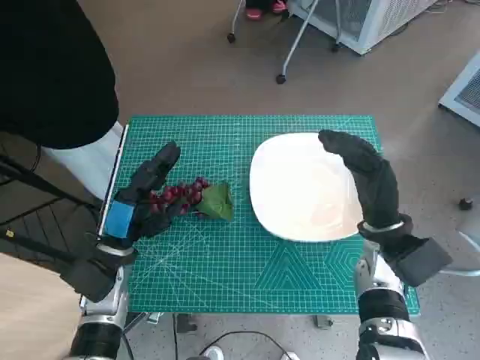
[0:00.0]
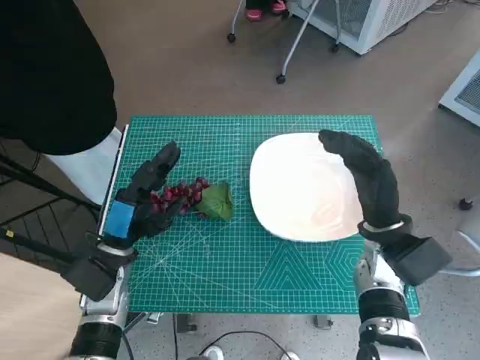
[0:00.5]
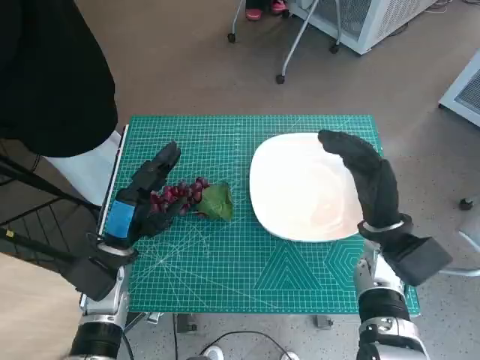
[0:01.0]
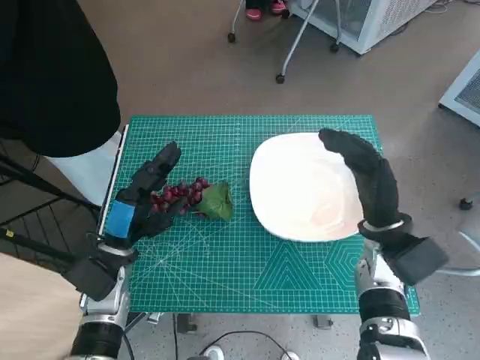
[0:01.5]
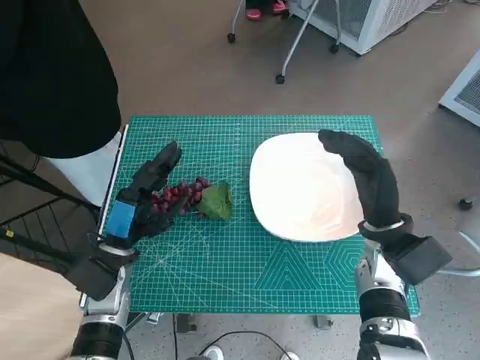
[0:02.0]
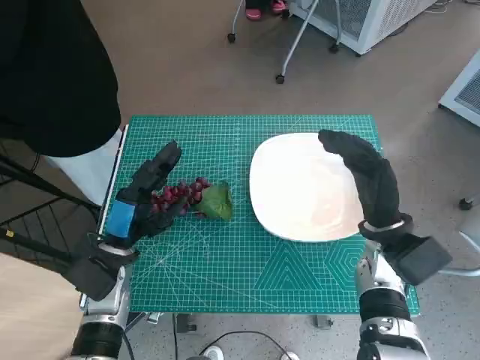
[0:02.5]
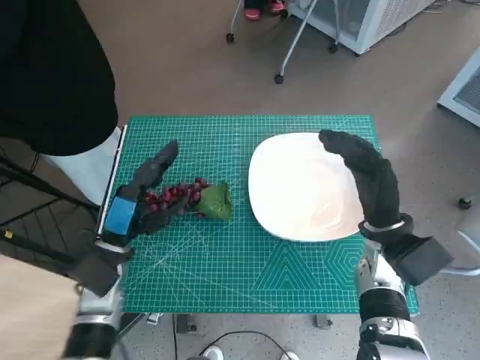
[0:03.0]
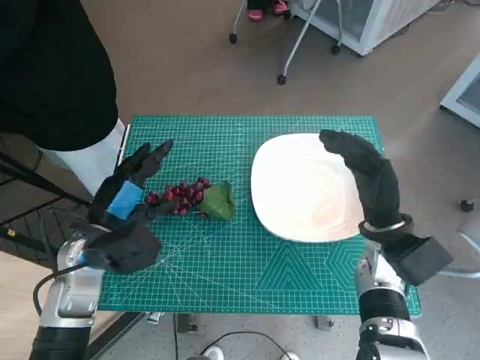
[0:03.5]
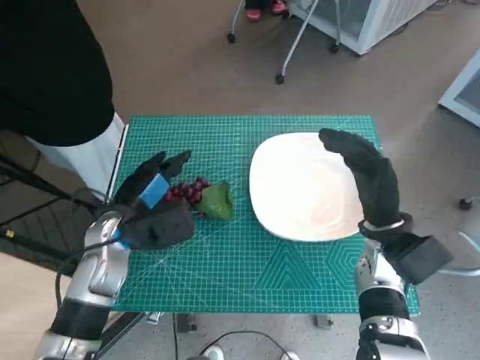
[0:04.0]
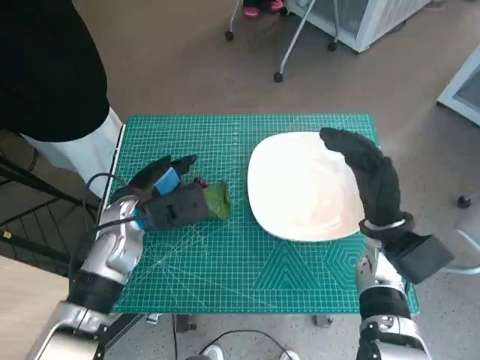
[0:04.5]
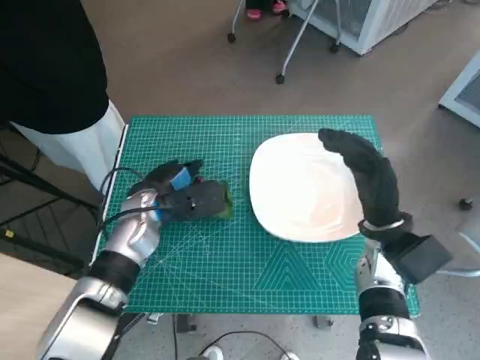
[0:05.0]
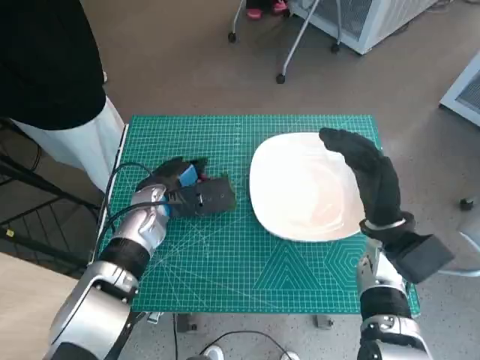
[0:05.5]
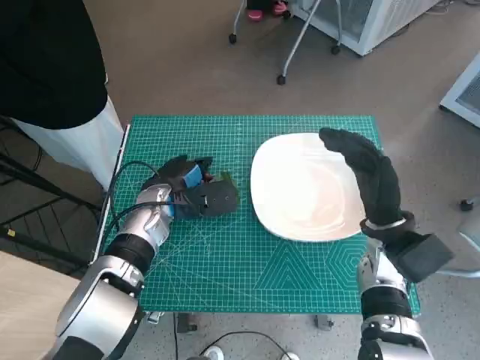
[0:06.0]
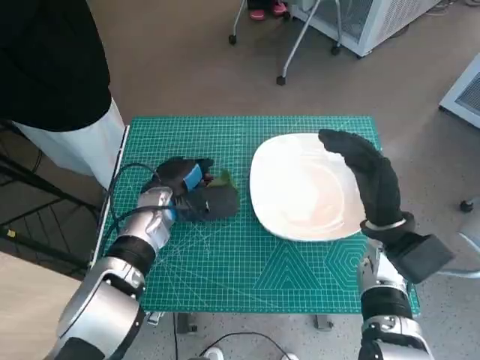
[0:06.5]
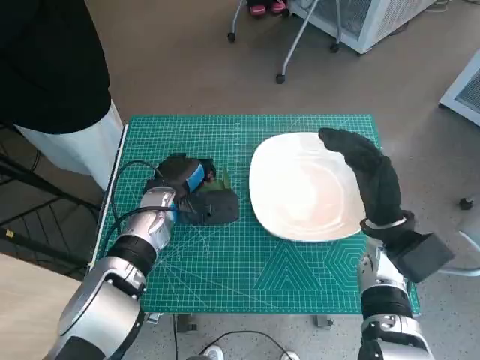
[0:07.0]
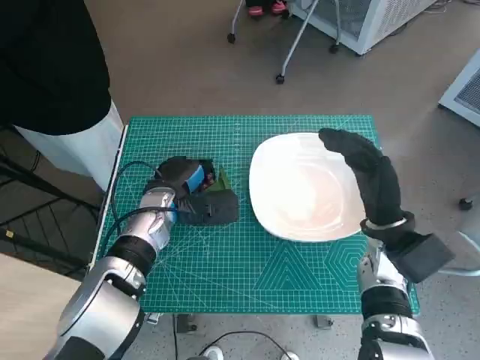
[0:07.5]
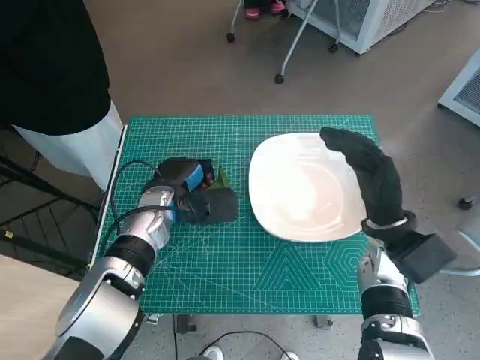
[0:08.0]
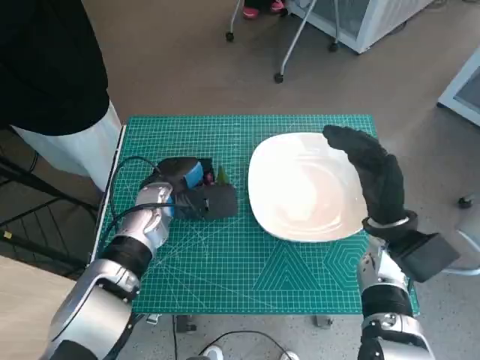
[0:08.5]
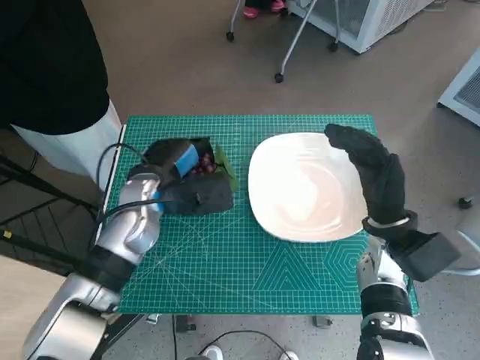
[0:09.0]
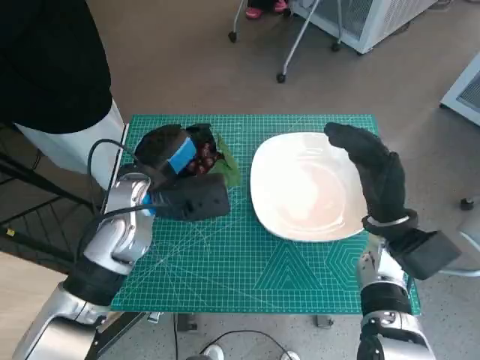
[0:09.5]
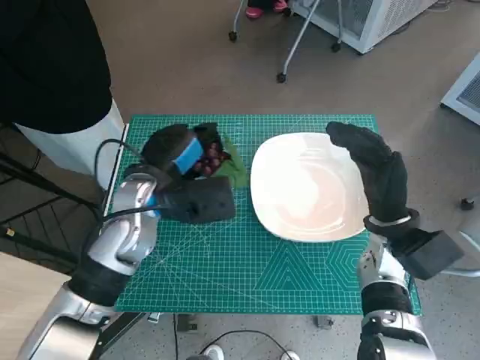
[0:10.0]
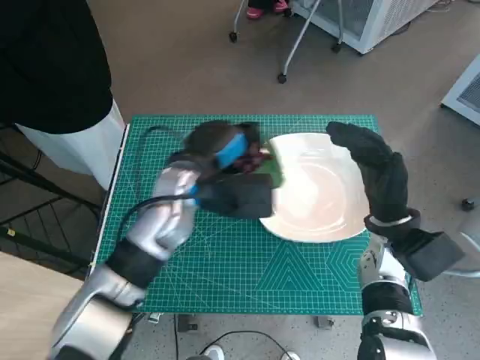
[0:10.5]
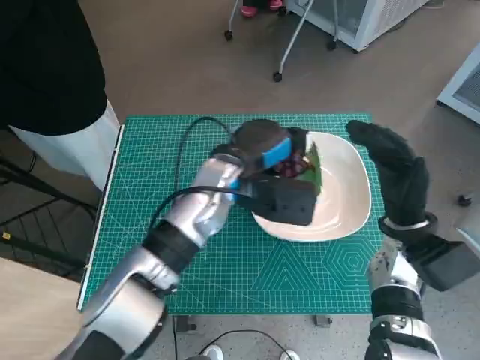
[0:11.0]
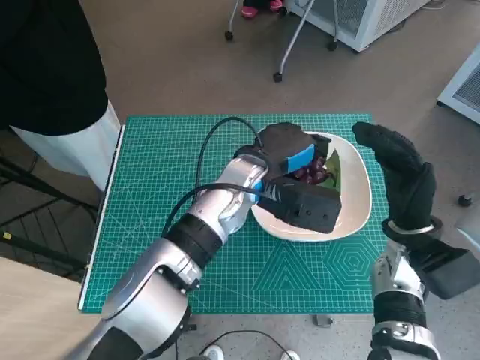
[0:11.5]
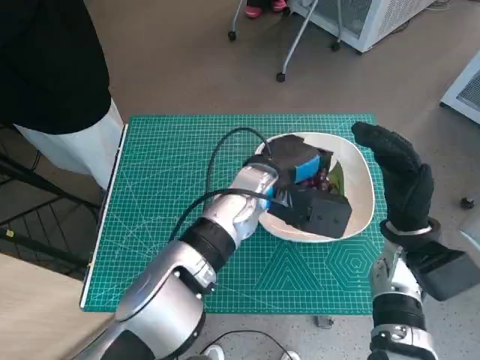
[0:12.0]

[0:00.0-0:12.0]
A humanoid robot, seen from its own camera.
Task of the whole recording: Pick up the grapes and put them on the plate.
Step, 0:00.0 to 0:08.0: Grasp the grapes with left hand.
0:02.0 to 0:04.0: The left hand ends up some 5 cm from where it was.
0:04.0 to 0:06.0: The left hand moves forward, approximately 5 cm.
0:06.0 to 0:08.0: The hands make only small movements.
0:08.0 to 0:10.0: The left hand goes approximately 10 cm upward.
0:10.0 to 0:12.0: The left hand goes some 15 cm to the right.

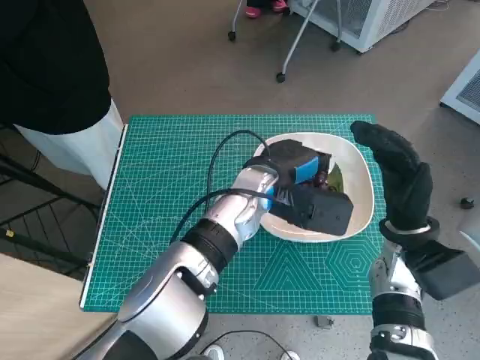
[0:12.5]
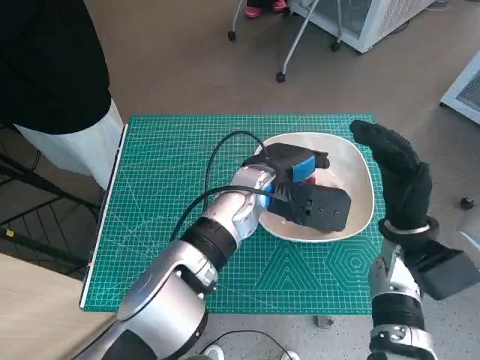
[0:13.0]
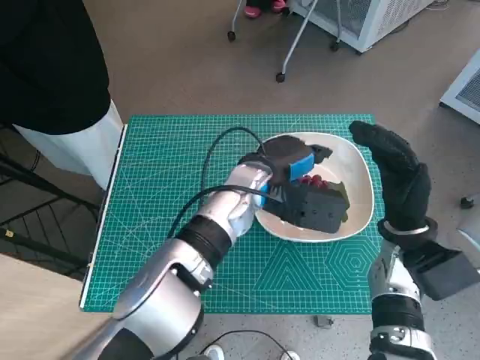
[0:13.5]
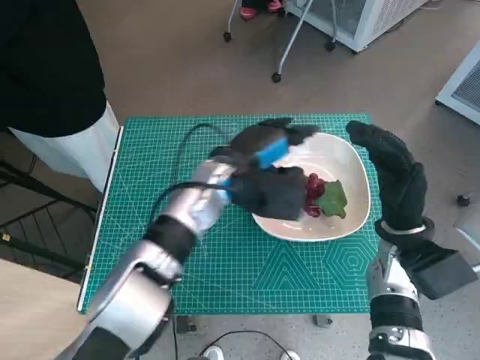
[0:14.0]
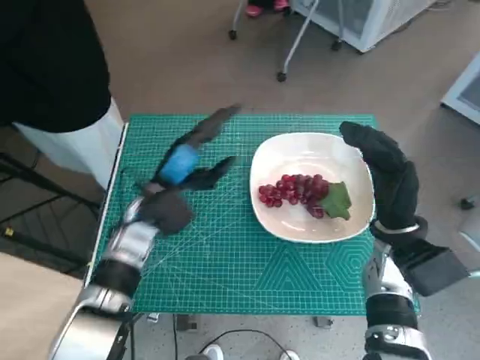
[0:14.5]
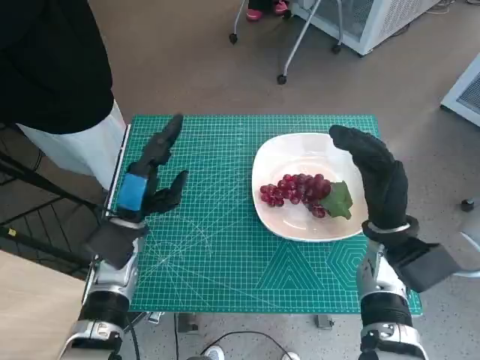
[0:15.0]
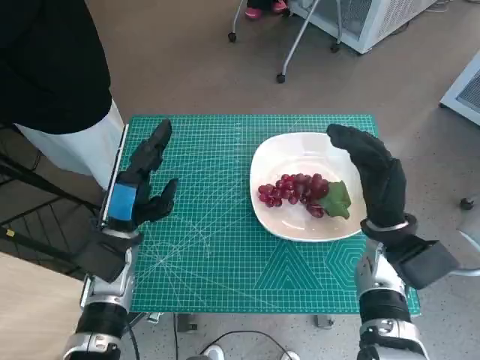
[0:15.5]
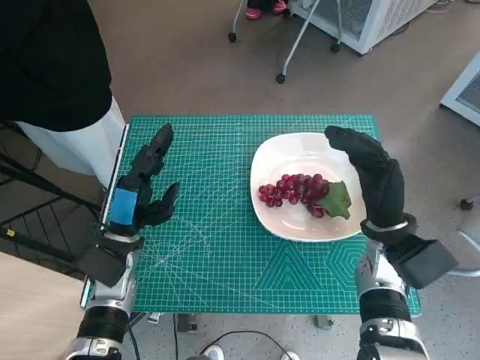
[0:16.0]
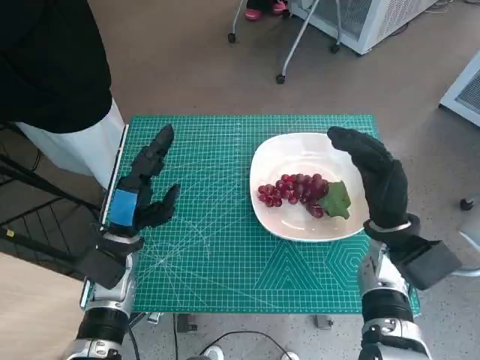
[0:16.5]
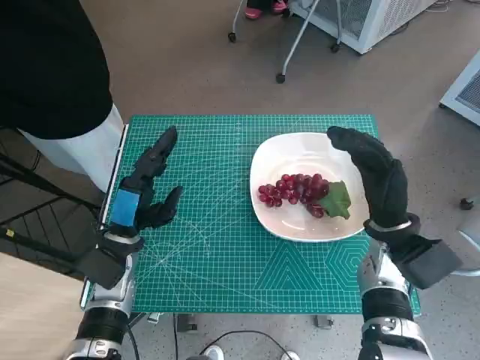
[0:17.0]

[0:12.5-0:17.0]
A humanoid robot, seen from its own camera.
Task of the whole recording: Pick up the grapes and put them on the plate.
0:12.5 to 0:14.5: The left hand shifts some 15 cm to the left.
0:14.5 to 0:17.0: The left hand shifts about 10 cm backward and to the left.

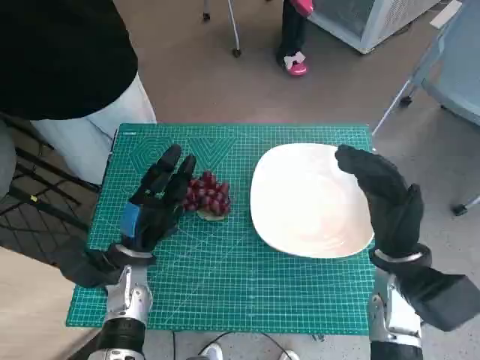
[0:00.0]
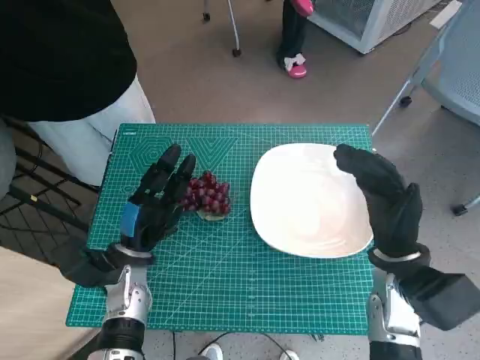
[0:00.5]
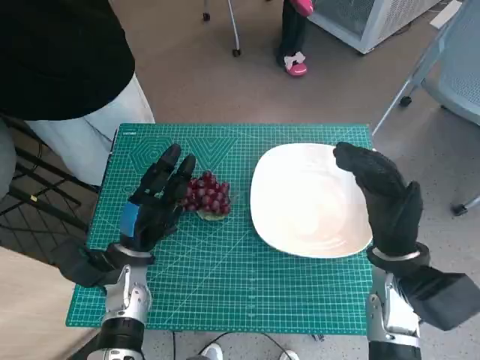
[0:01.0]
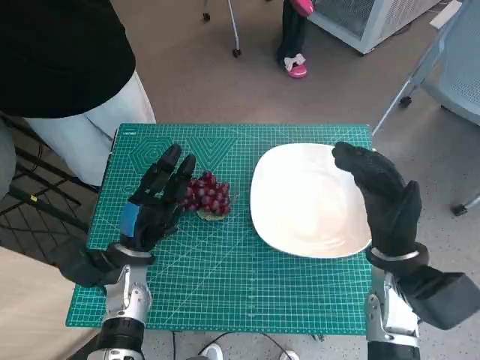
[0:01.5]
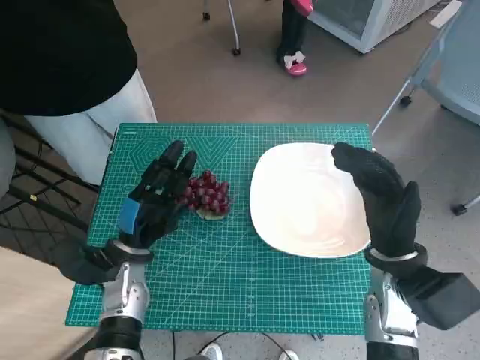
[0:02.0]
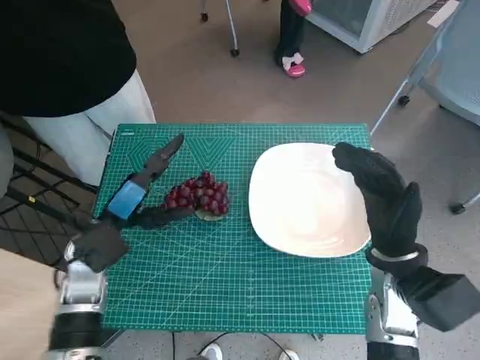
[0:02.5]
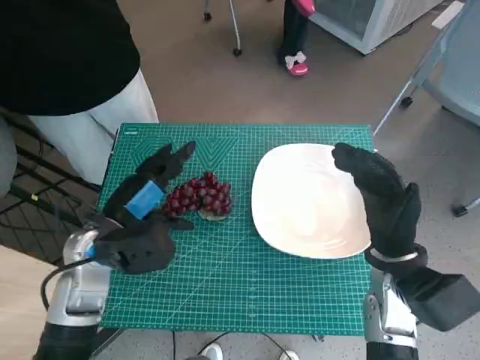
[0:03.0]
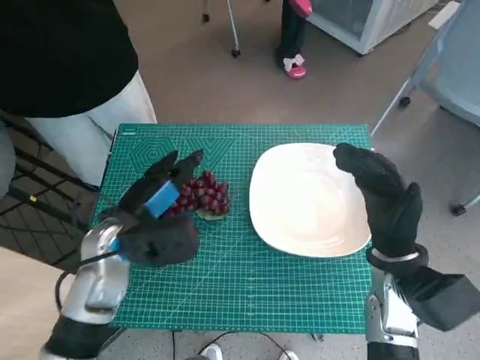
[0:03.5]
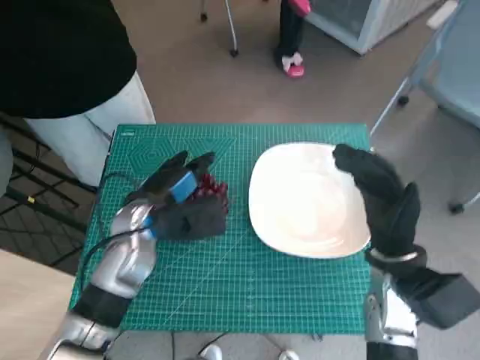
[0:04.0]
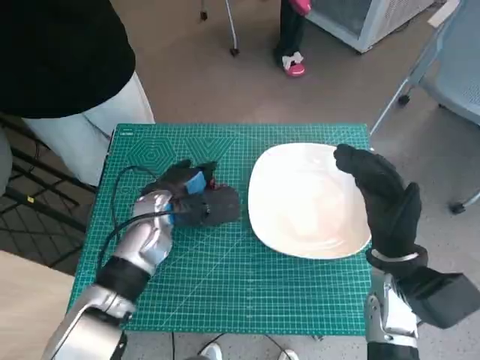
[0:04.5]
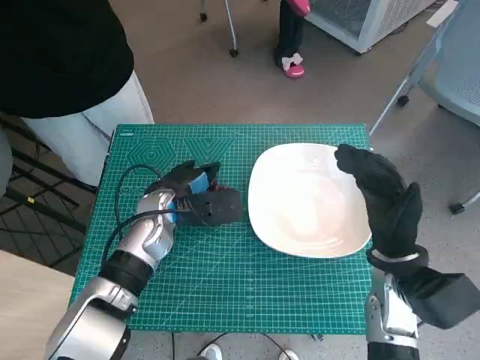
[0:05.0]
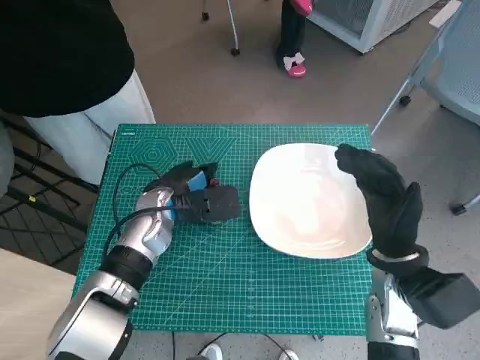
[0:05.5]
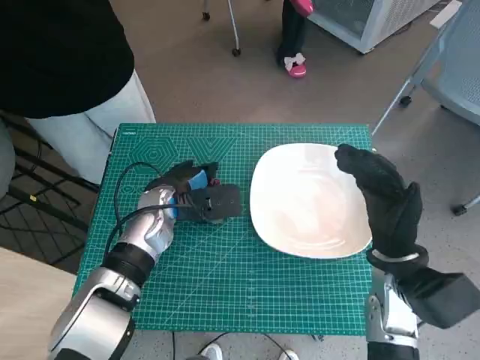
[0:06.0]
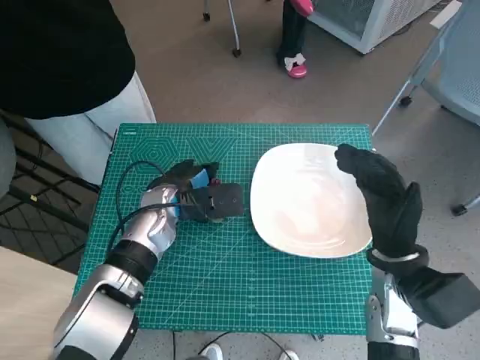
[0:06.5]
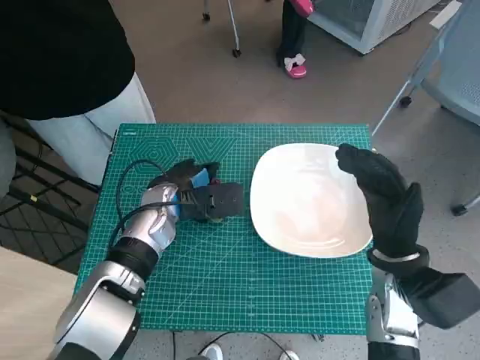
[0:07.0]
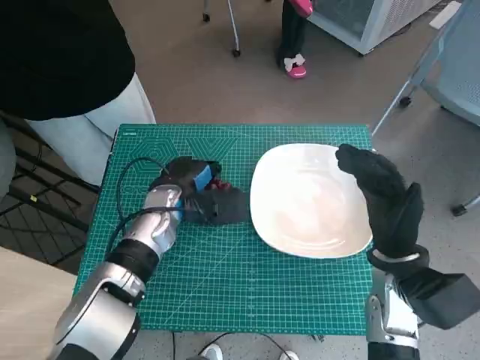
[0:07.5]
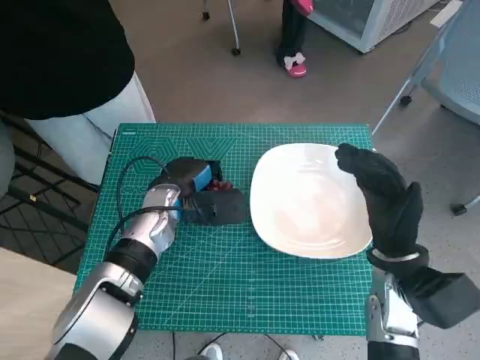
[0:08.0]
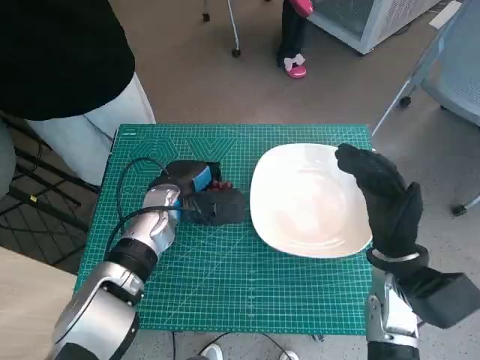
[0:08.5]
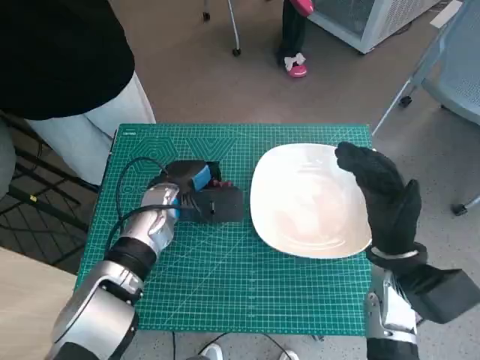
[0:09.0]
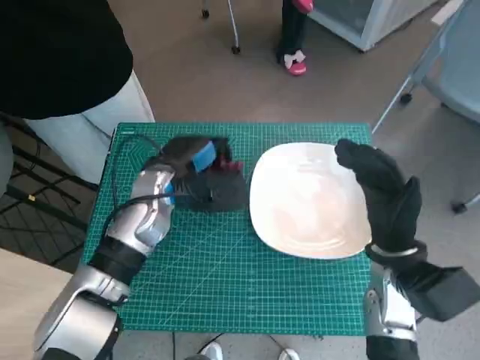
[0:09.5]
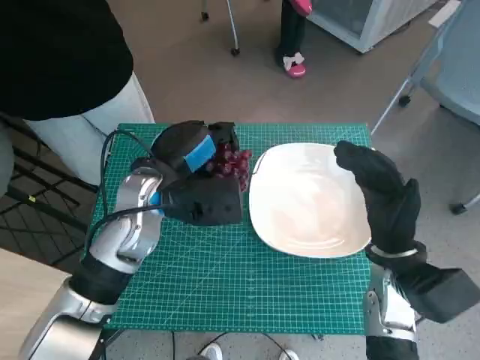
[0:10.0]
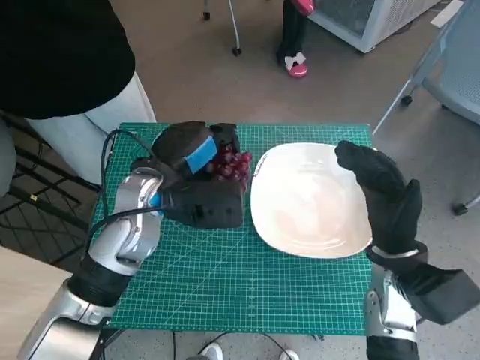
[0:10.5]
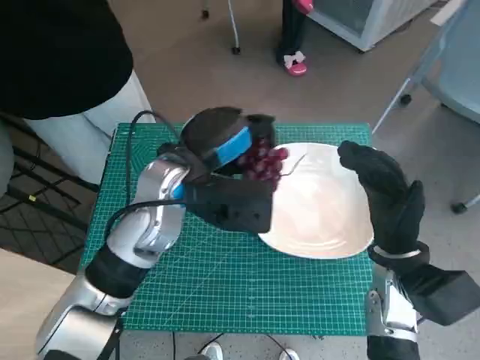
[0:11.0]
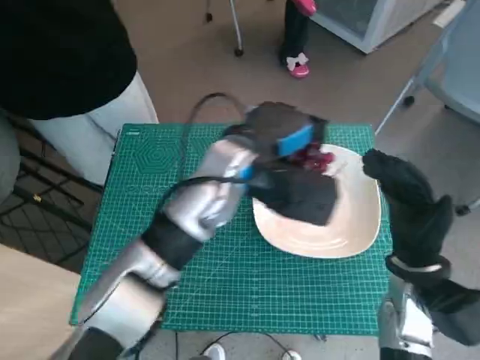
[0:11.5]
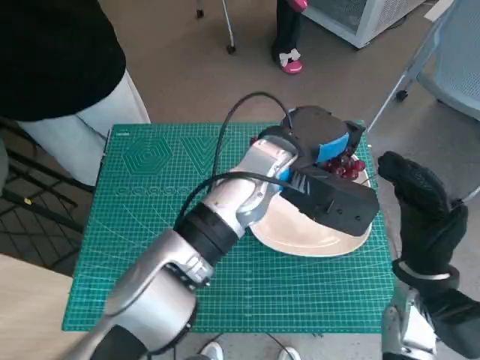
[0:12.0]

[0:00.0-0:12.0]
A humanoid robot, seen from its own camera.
Task of the whole recording: Pick up the grapes and put them on the plate.
Step, 0:00.0 to 0:08.5: Grasp the grapes with left hand.
0:02.0 to 0:04.0: The left hand moves upward, some 10 cm.
0:04.0 to 0:06.0: The left hand shifts by approximately 5 cm.
0:06.0 to 0:08.0: The hands move only a little.
0:08.0 to 0:10.0: The left hand is displaced upward by about 10 cm.
0:10.0 to 0:12.0: The left hand travels to the right by roughly 15 cm.
